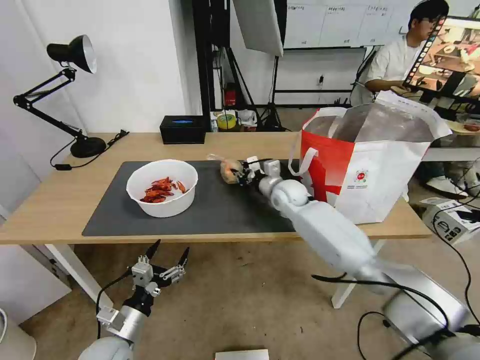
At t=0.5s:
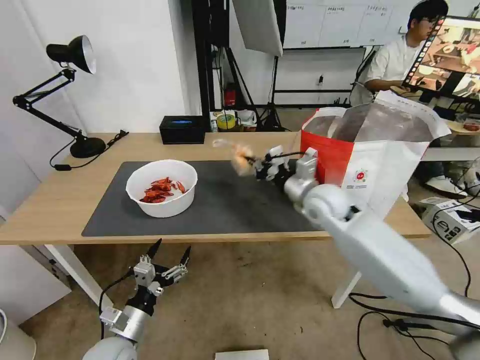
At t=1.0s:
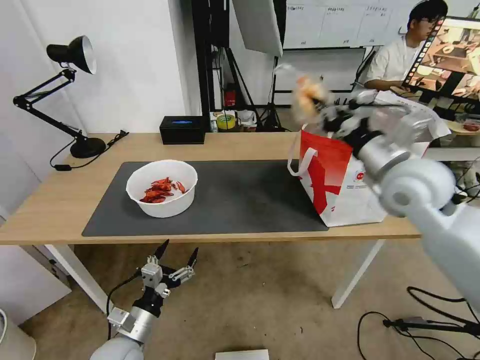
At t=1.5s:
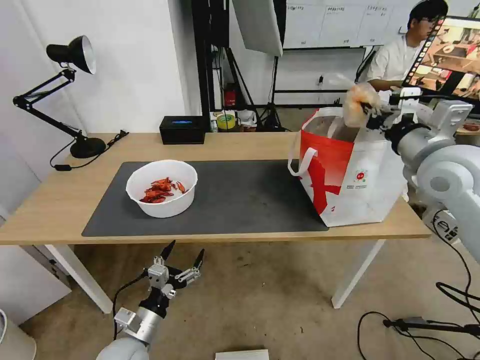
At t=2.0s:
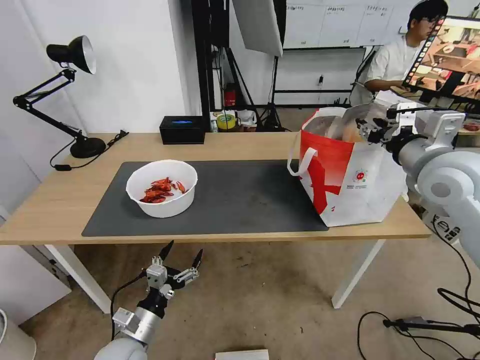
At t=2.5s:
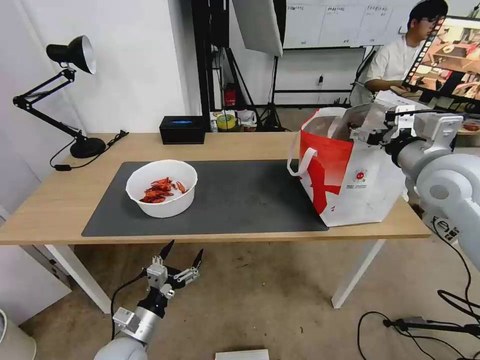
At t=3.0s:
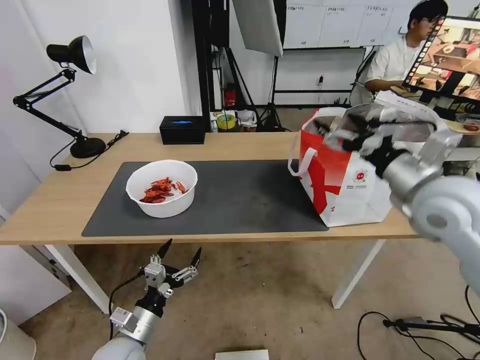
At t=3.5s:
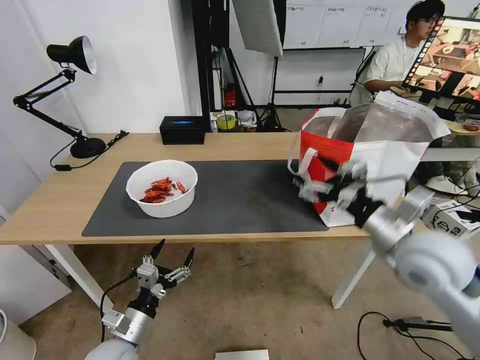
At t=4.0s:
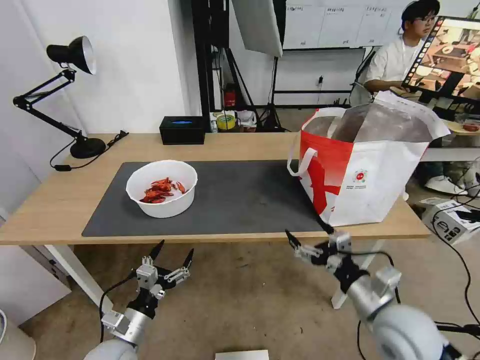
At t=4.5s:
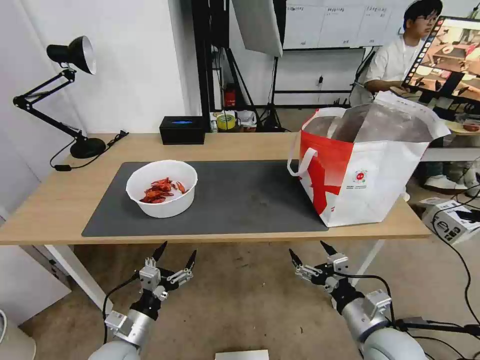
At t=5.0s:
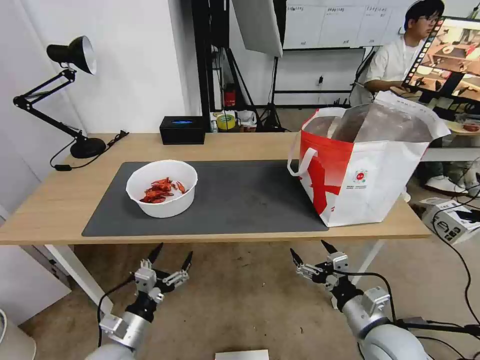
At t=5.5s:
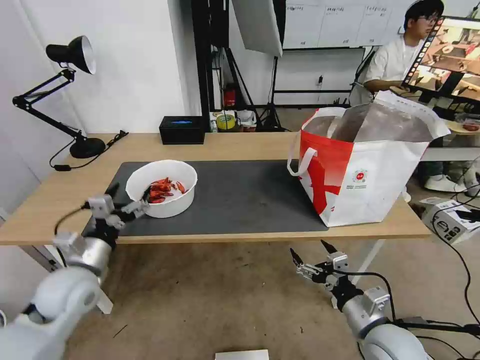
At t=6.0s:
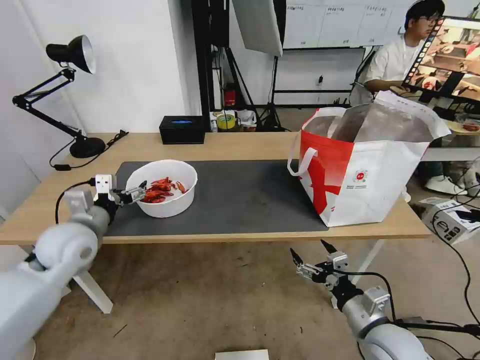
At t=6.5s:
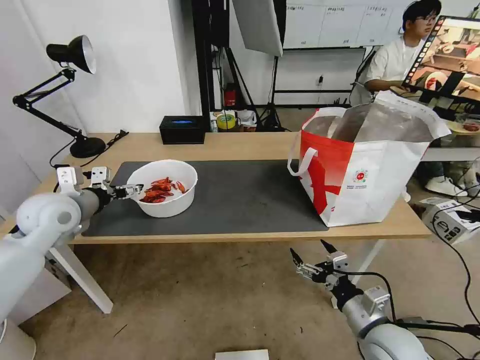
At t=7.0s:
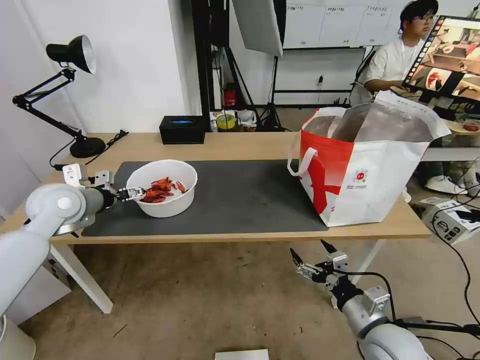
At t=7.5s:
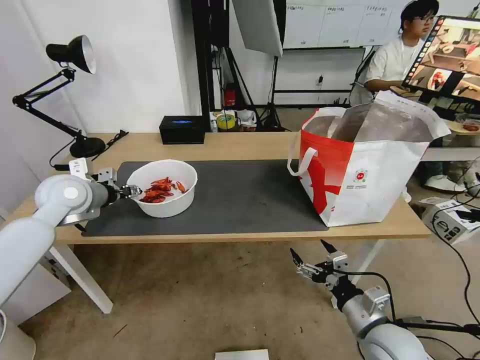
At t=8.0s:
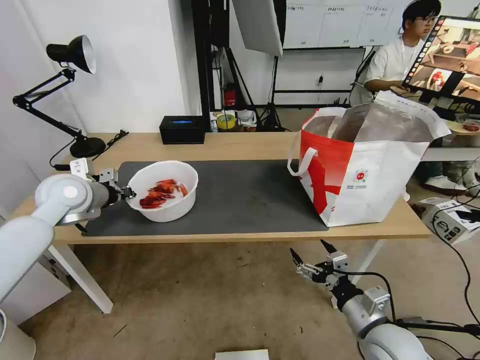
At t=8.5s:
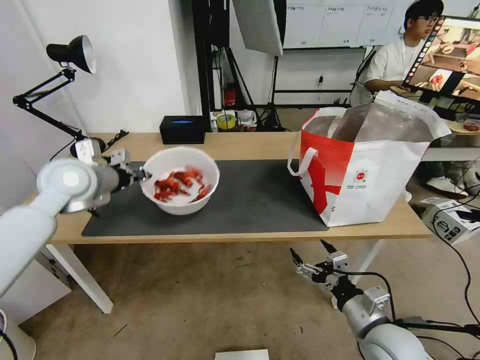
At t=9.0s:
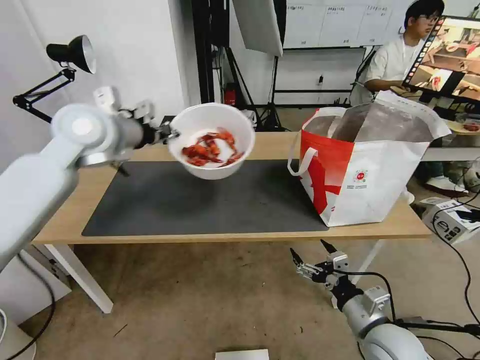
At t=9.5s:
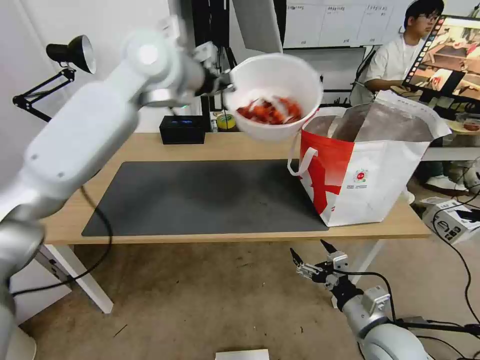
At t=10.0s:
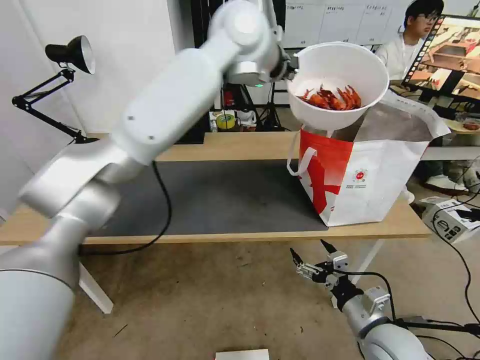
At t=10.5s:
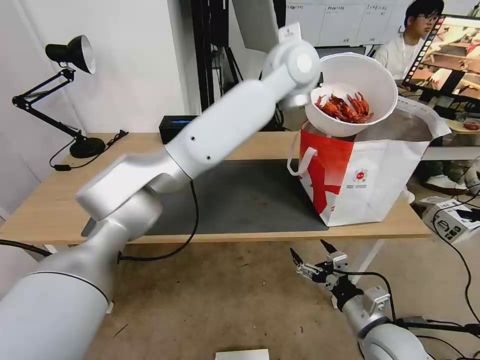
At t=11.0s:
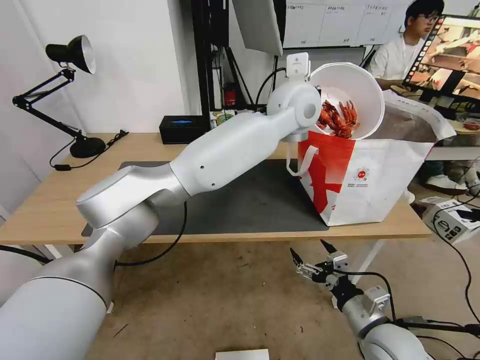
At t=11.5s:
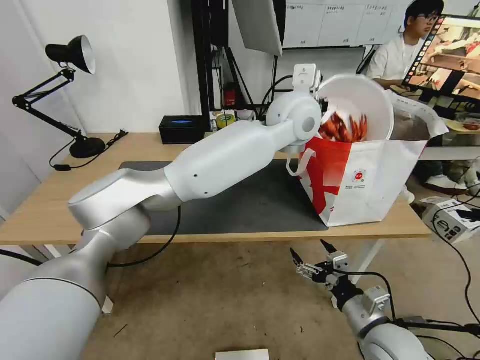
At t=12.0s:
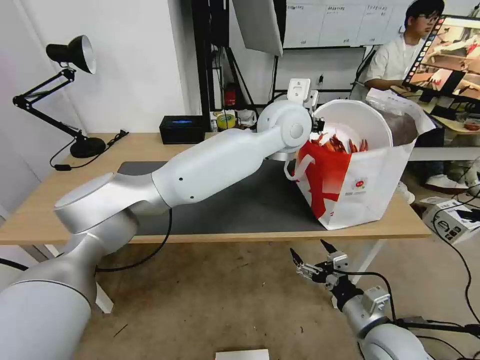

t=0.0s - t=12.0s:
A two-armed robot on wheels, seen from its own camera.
Task of the whole recording: Pick up the trash from the table and place it into the takeout bag.
t=0.0s - t=2.0s: The right gripper travels upward, to the right and backward by some 35 cm.
t=2.0s - t=4.0s: The right gripper moves downward and backward, roughly 25 cm, and opens.
t=4.0s - t=6.0s: The left gripper shifts approximately 25 cm upward and forward; the right gripper moves downward, some 5 cm.
t=6.0s - t=8.0s: The left gripper goes some 10 cm forward and upward, and closes its fingers.
t=8.0s - t=10.0s: The left gripper goes approximately 40 cm to the right and upward.
t=10.0s - t=12.0s: The left gripper heads downward and to the right, covering roughly 15 cm.

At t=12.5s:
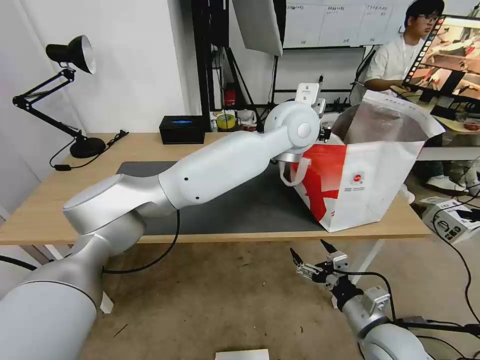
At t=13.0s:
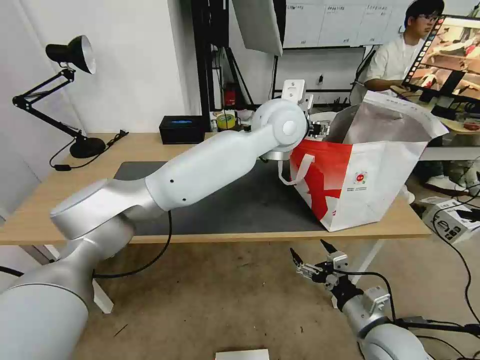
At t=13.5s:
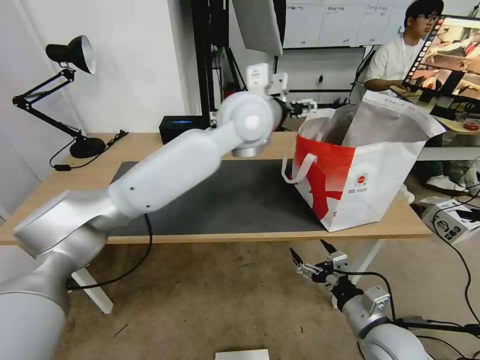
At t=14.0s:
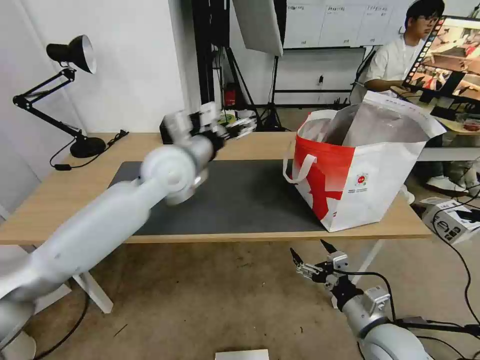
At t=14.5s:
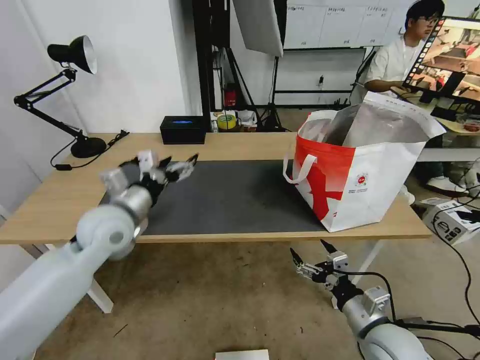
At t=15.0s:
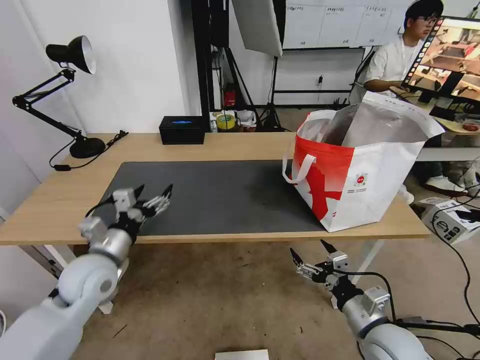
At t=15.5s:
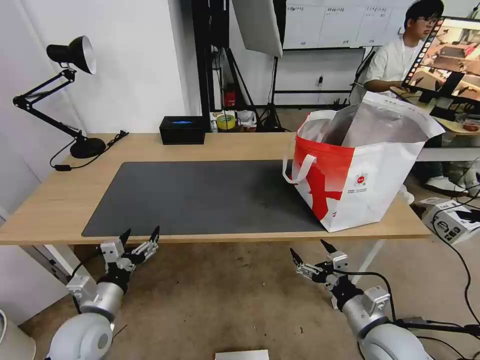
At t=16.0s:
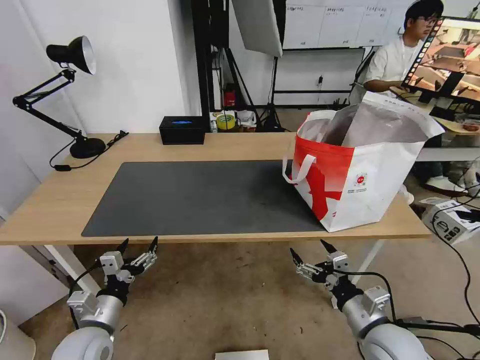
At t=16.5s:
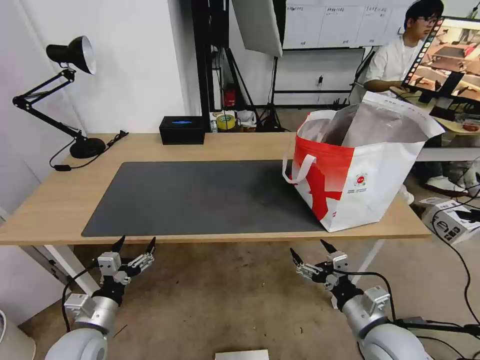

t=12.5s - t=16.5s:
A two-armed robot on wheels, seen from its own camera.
Task of the whole recording: Pick up the trash from the table and place it into the takeout bag.
t=12.5s - t=14.5s: The left gripper goes roughly 40 cm to the left and downward, and opens.
t=14.5s - t=16.5s: The left gripper heads downward and backward, covering roughly 25 cm.

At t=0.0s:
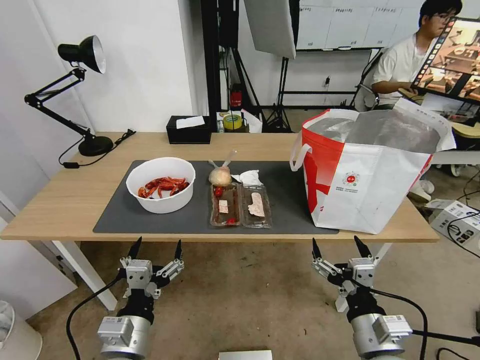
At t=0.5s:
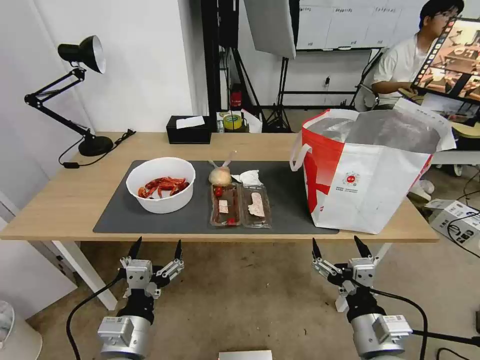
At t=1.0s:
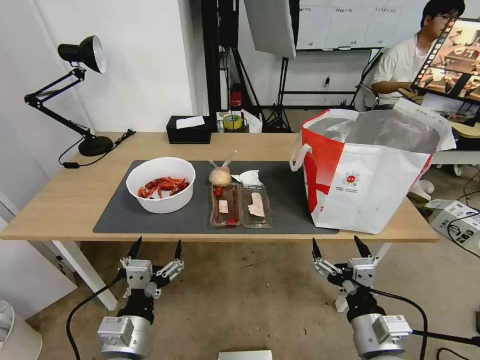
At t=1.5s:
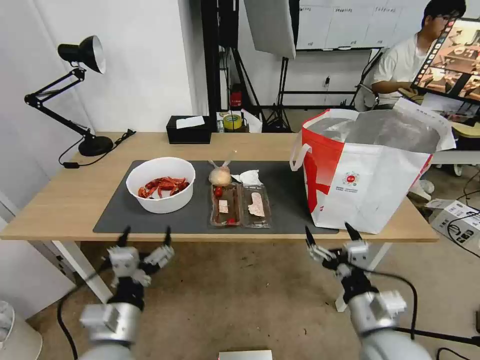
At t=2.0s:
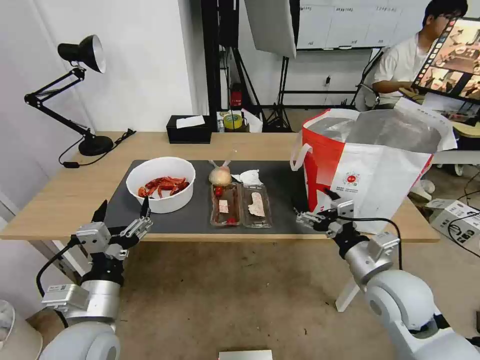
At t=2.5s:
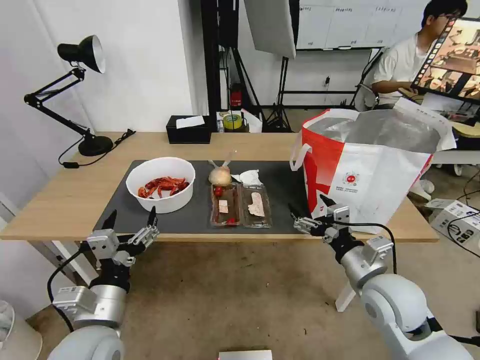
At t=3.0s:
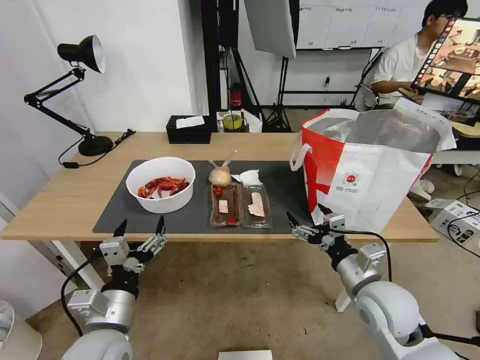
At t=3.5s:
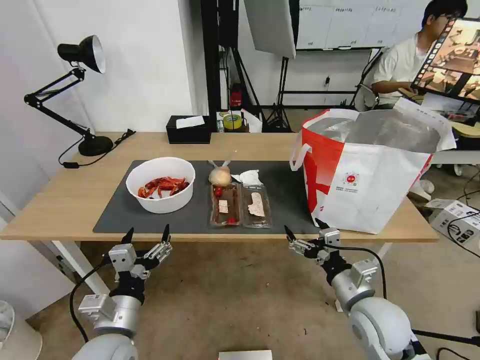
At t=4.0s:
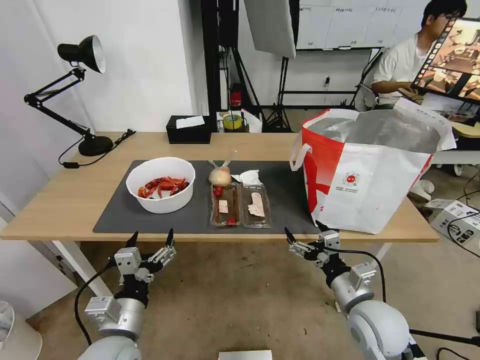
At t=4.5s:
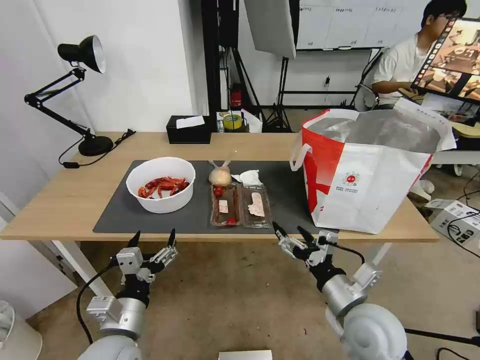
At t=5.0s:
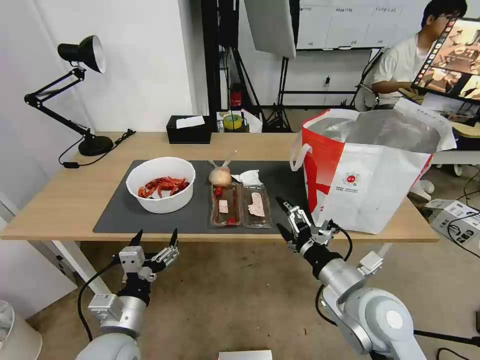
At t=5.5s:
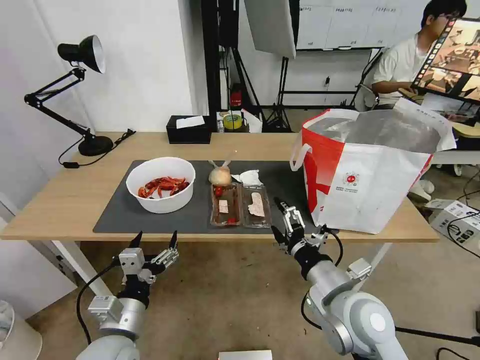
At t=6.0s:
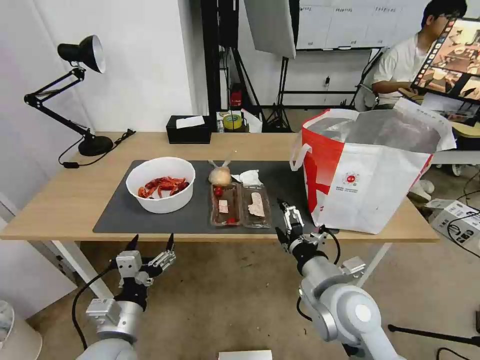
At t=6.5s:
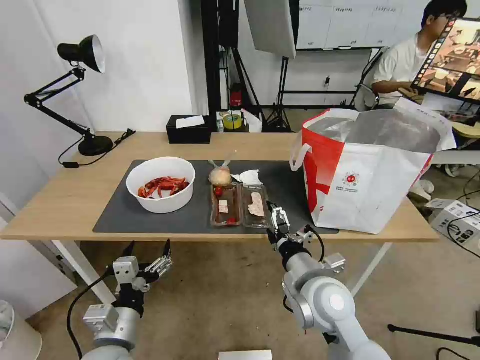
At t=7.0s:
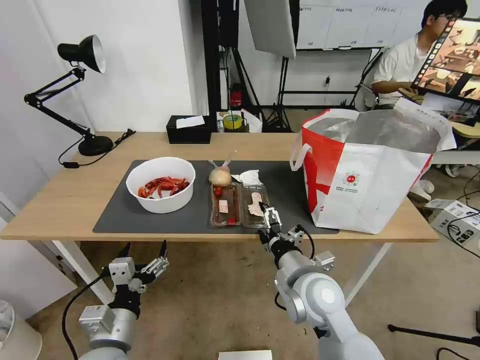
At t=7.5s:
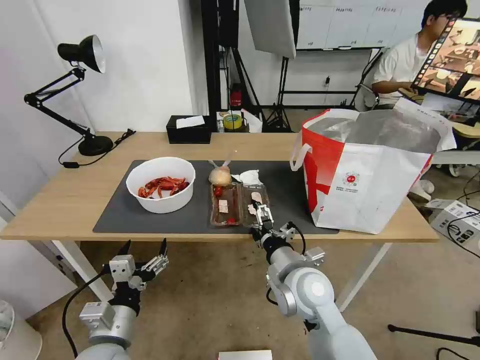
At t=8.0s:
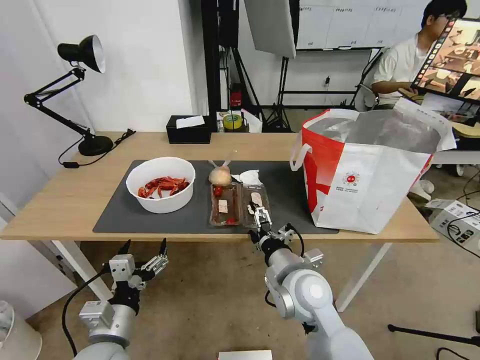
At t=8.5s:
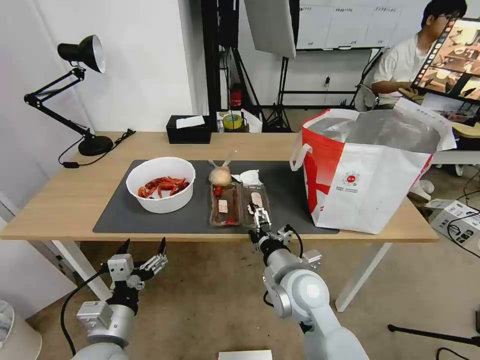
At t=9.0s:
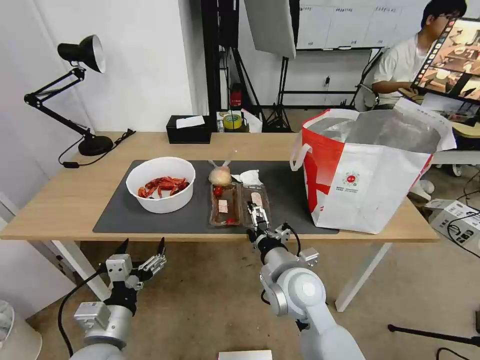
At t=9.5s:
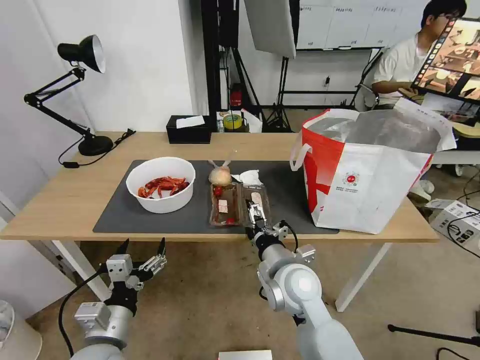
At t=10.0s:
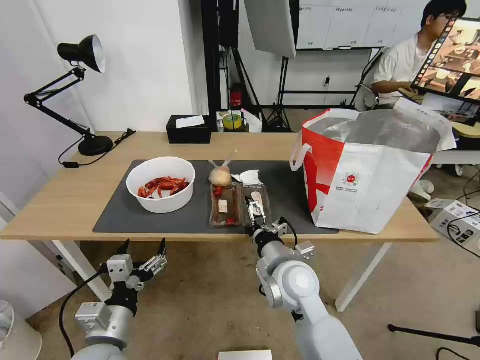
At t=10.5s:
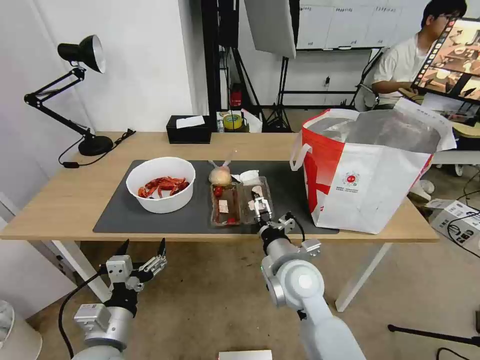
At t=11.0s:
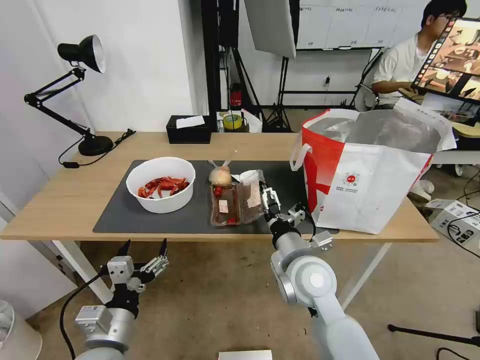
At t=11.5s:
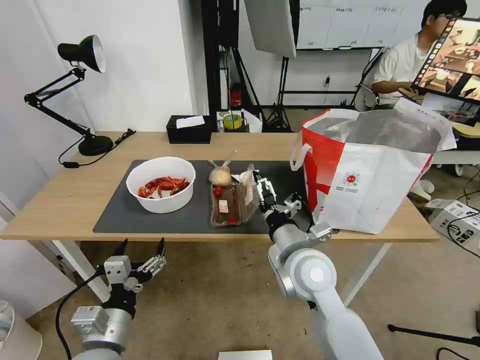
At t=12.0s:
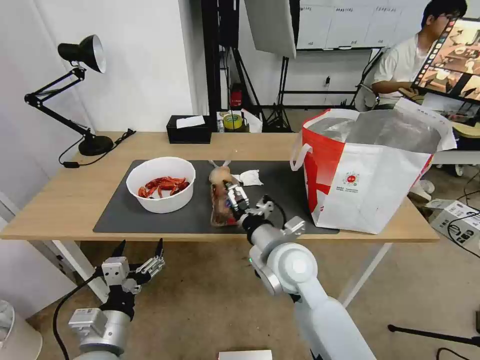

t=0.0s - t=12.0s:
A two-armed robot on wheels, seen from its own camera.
Task of the whole recording: Pick up the trash from the table and place it into the takeout bag.
t=2.0s - t=4.0s: The grippers both shift downward by about 5 cm.
t=4.0s - t=6.0s: The right gripper goes roughly 10 cm to the left and upward.
t=6.0s - t=8.0s: The right gripper goes about 5 cm to the left.
t=8.0s - t=12.0s: The grippers move only a little.
